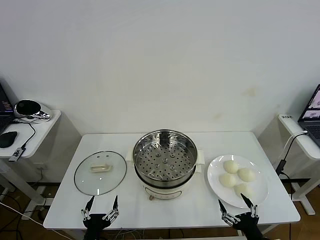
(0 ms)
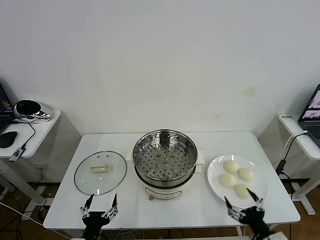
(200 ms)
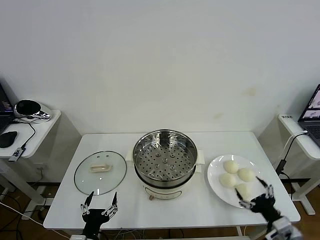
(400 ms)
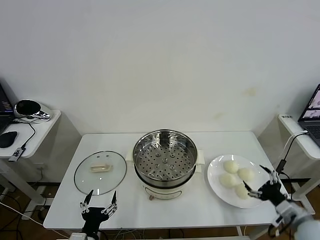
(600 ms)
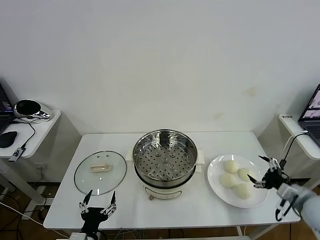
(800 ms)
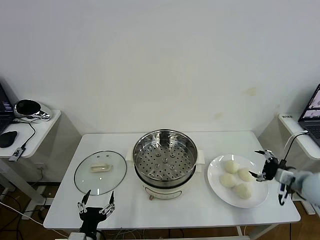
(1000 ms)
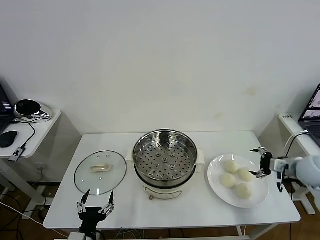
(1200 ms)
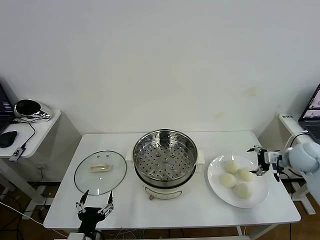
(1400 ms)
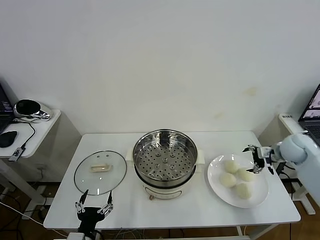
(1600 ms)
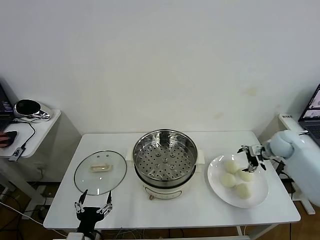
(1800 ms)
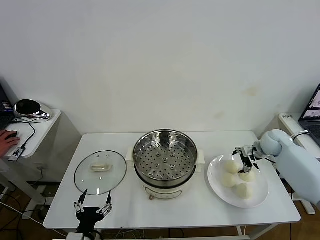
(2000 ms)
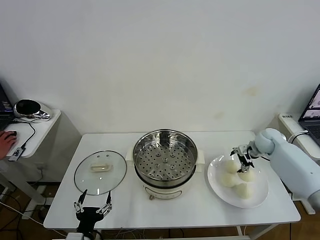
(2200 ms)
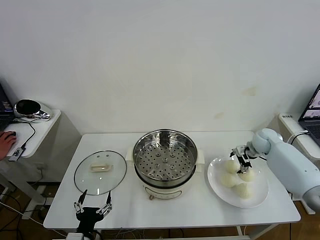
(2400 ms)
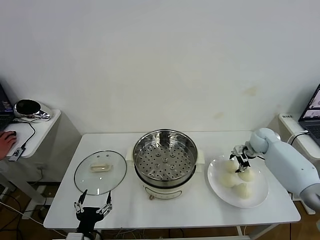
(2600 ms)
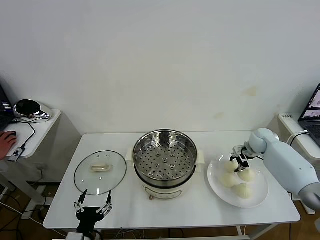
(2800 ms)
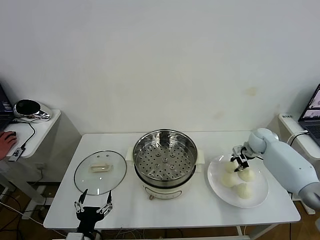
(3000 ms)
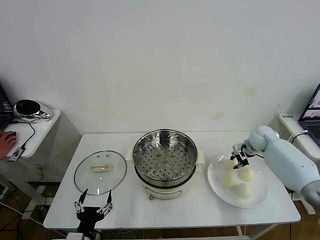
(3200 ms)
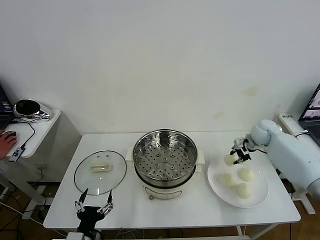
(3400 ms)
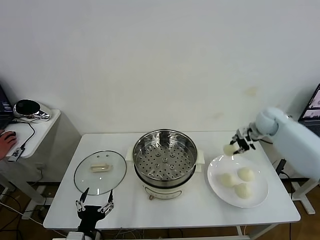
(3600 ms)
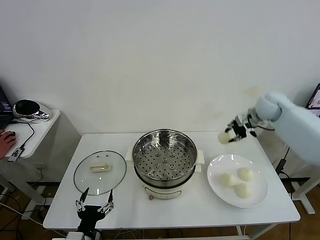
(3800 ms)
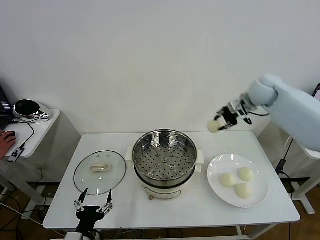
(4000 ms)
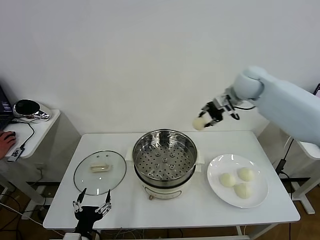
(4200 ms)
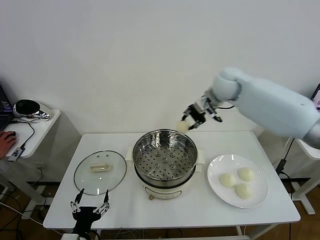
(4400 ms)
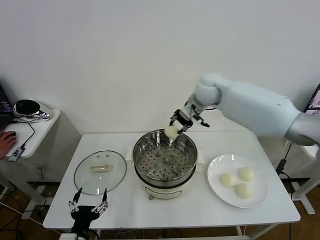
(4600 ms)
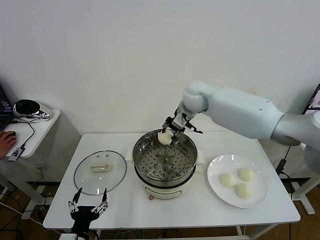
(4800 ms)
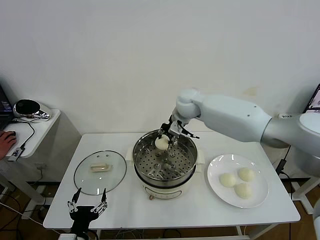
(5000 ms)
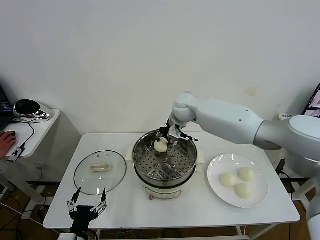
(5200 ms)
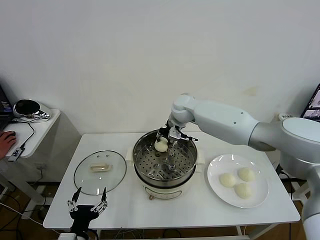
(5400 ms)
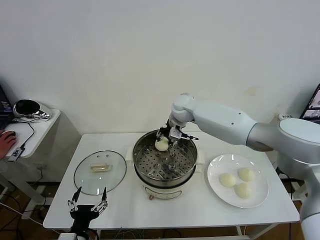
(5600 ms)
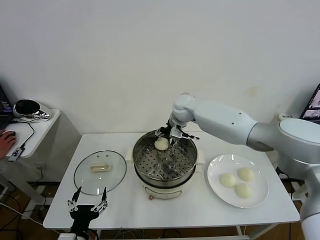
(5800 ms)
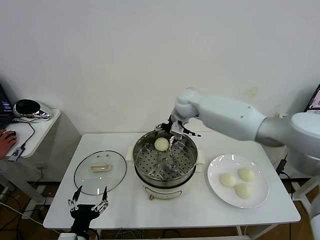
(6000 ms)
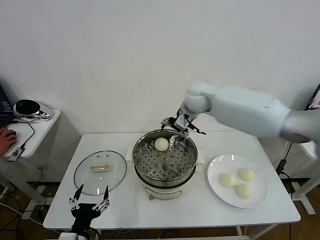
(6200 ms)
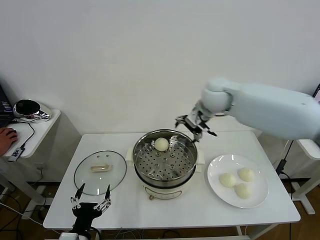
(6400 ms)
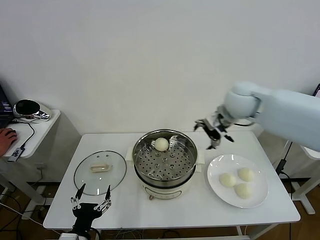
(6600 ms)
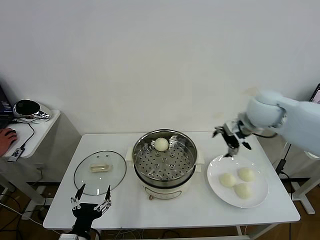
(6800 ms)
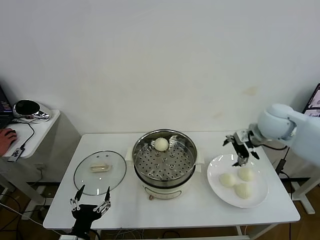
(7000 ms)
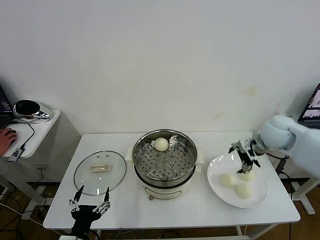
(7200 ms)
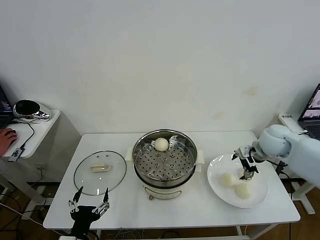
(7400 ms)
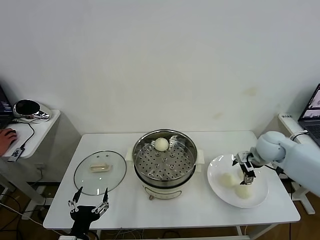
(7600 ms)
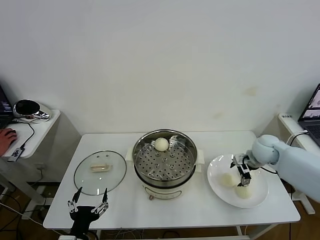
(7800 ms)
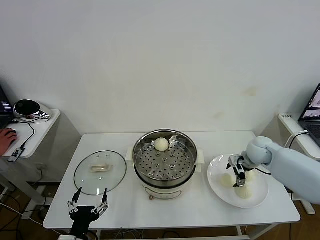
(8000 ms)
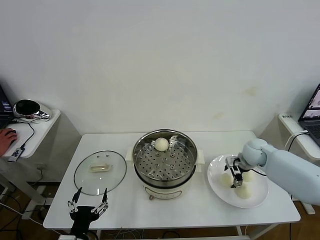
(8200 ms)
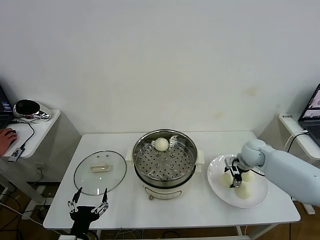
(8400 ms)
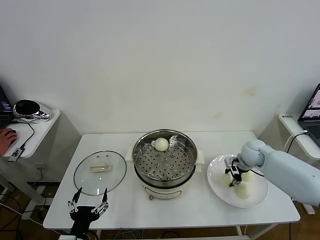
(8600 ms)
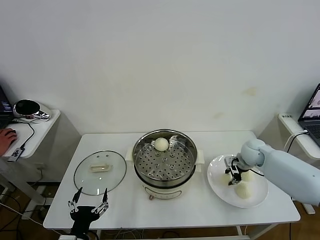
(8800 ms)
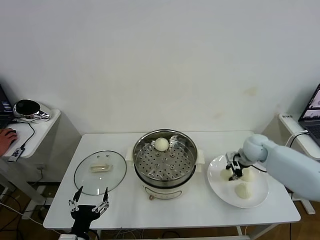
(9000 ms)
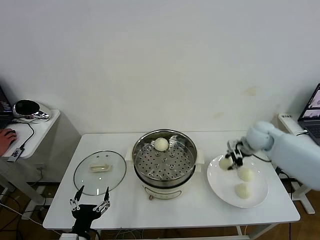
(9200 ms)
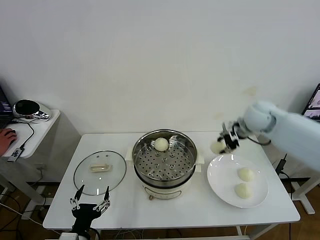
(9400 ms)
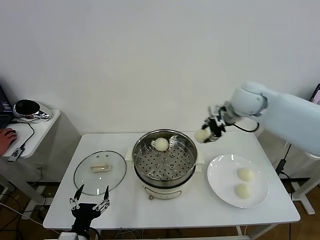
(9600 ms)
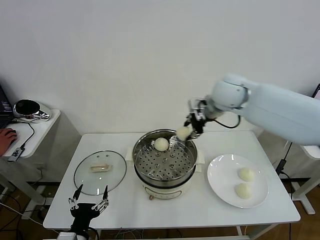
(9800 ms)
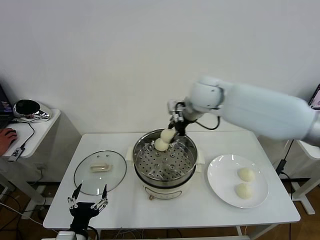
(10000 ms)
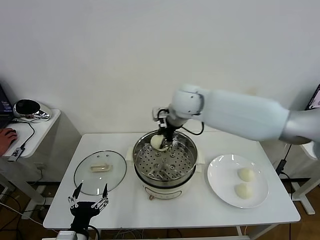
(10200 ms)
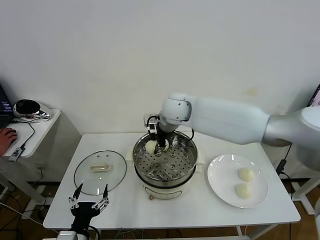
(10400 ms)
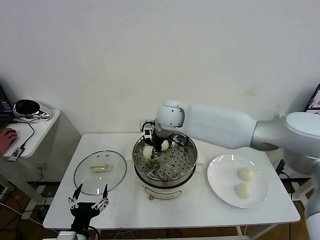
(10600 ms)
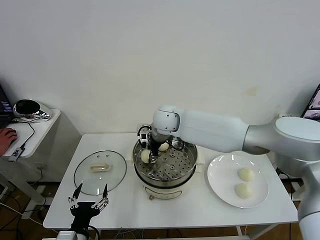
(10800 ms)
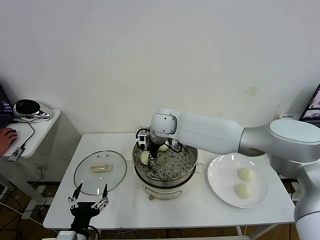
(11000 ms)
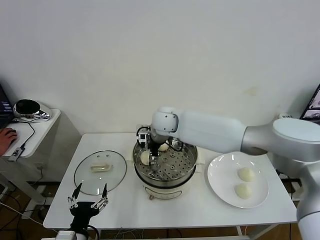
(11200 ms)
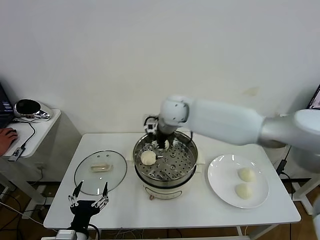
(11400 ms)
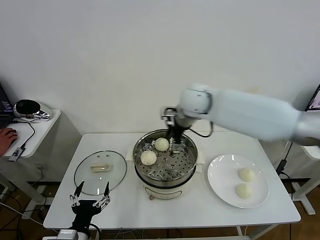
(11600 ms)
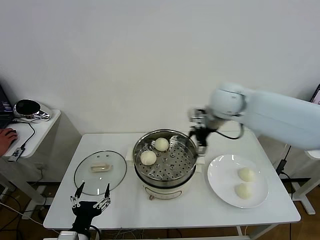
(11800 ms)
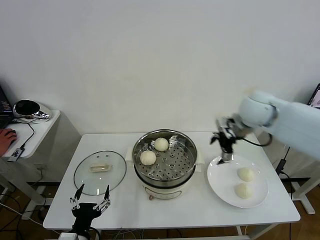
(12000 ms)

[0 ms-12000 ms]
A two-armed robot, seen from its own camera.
Task of the whole recording: take steamed baozi put them in steamer then cover it.
Step, 0 ms to 2800 ms: Grasp the baozi in the plate with right gripper.
Step, 3000 ms to 5800 ms: Place the baozi on the steamer with right gripper.
Step, 6000 ms to 8600 ms: Grasp the baozi in the plate with right gripper.
Step, 8800 ms to 11200 ms: Place the baozi on the steamer with right gripper.
1600 ms to 3000 ms: The right gripper travels forward by some 5 cm, and closes up.
3000 ms to 4400 ms: The right gripper goes some 30 cm to the left and upward.
4400 ms to 6000 ms: The right gripper goes roughly 5 cm to the left, and opens.
6000 ms to 7600 ms: The right gripper moves to the right and downward, about 30 cm.
7600 ms to 9000 ms: The right gripper closes up.
9000 ms to 10400 ms: The right gripper goes about 35 cm to the left and upward.
10400 ms to 12000 ms: The right gripper shifts roughly 25 cm to the right, and opens up.

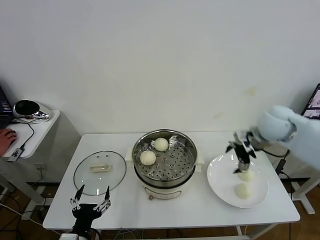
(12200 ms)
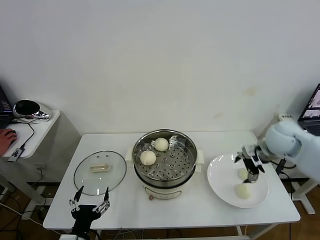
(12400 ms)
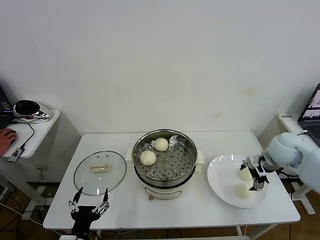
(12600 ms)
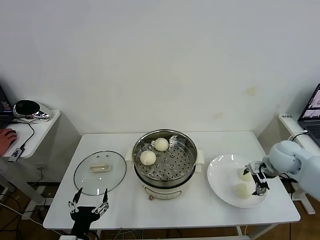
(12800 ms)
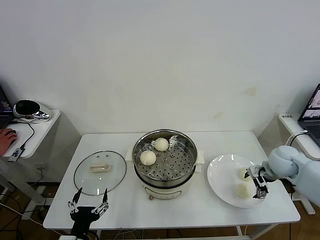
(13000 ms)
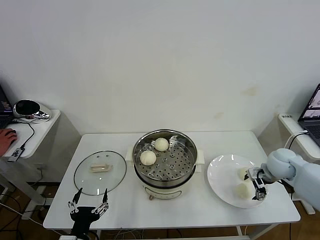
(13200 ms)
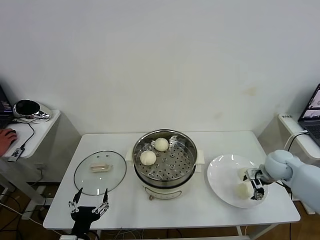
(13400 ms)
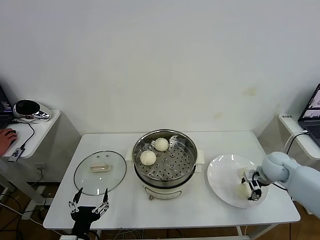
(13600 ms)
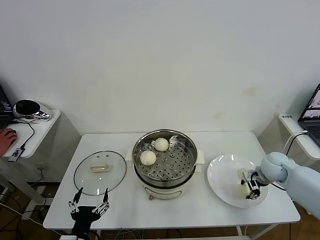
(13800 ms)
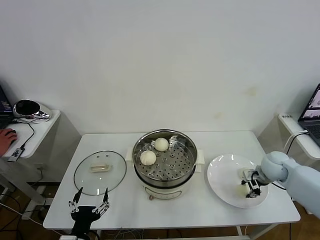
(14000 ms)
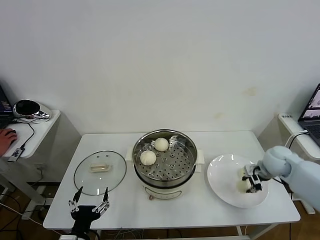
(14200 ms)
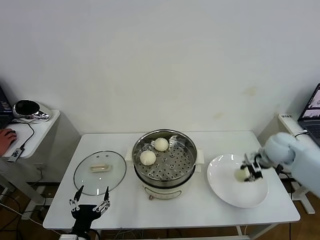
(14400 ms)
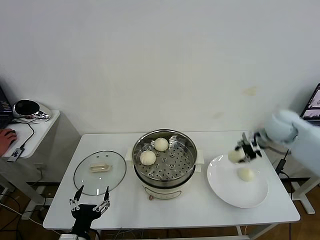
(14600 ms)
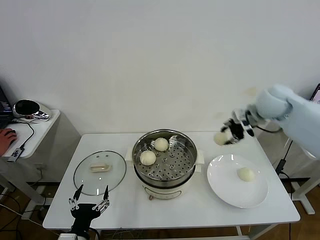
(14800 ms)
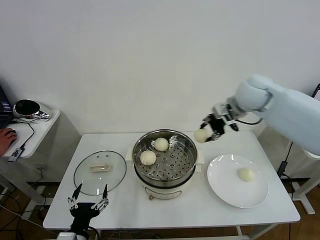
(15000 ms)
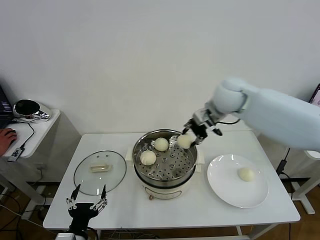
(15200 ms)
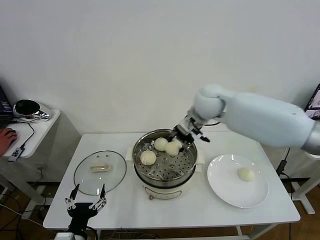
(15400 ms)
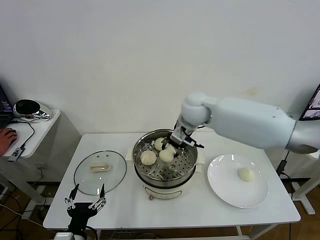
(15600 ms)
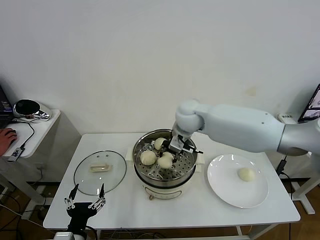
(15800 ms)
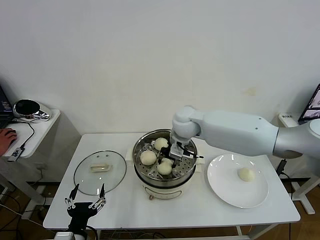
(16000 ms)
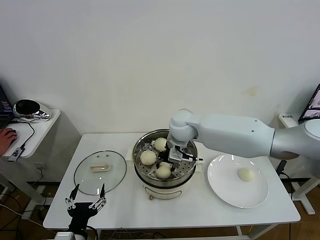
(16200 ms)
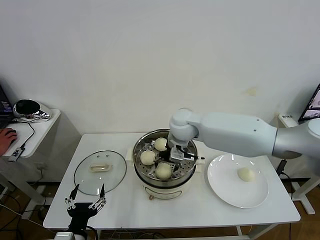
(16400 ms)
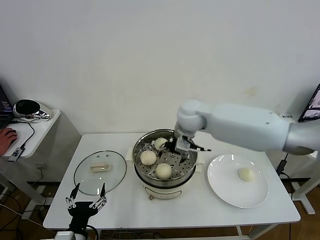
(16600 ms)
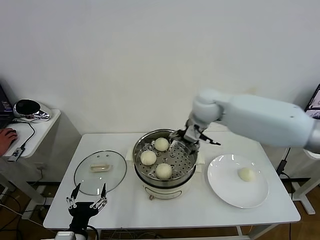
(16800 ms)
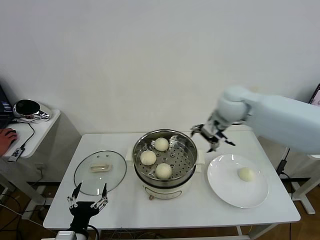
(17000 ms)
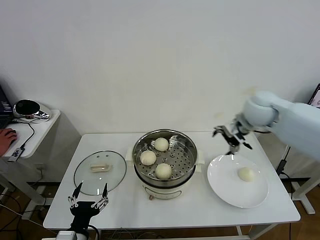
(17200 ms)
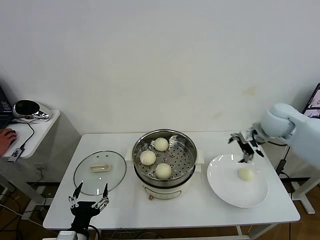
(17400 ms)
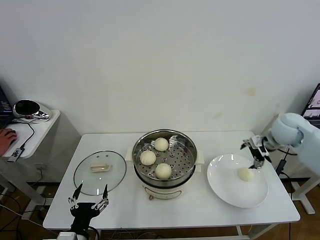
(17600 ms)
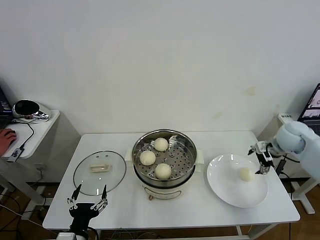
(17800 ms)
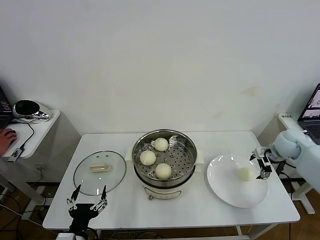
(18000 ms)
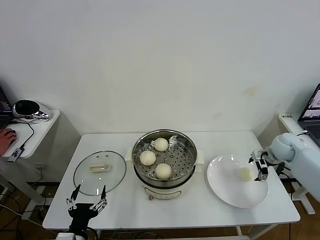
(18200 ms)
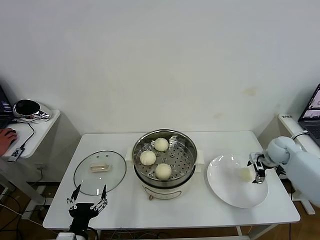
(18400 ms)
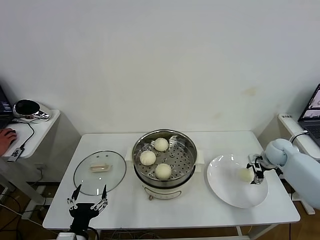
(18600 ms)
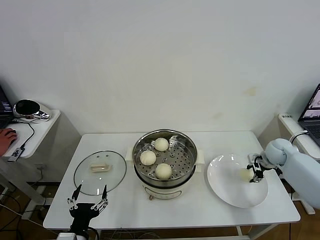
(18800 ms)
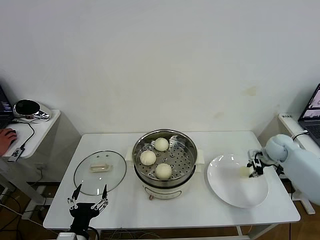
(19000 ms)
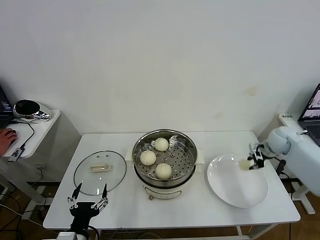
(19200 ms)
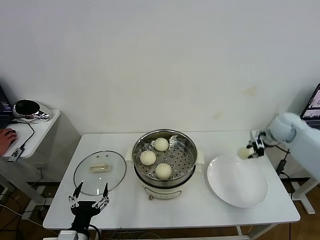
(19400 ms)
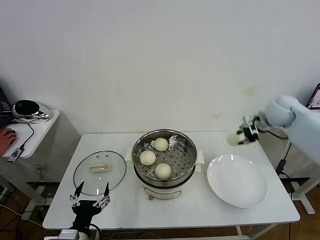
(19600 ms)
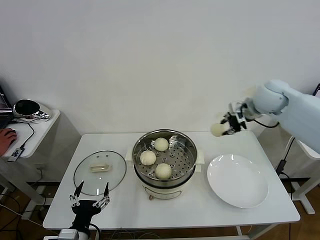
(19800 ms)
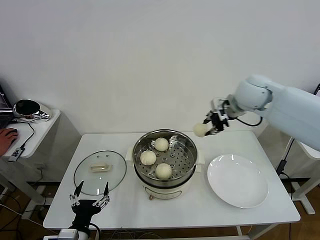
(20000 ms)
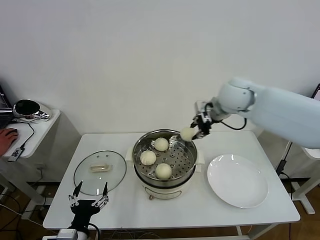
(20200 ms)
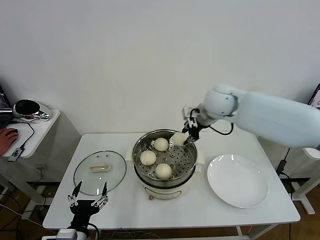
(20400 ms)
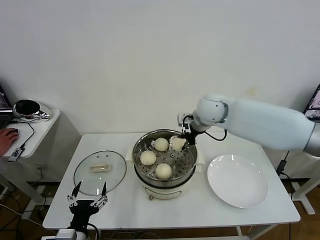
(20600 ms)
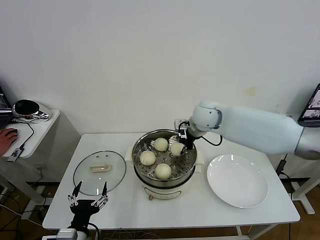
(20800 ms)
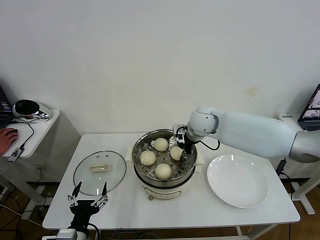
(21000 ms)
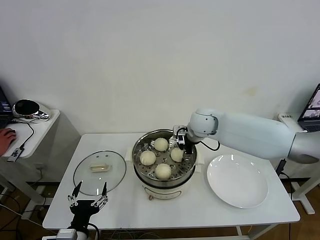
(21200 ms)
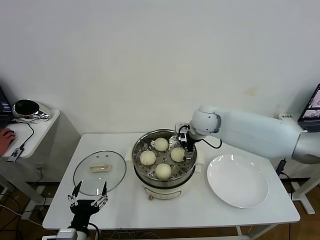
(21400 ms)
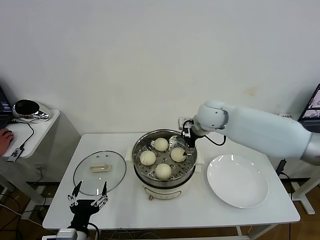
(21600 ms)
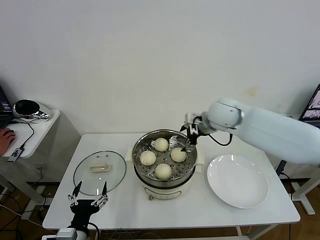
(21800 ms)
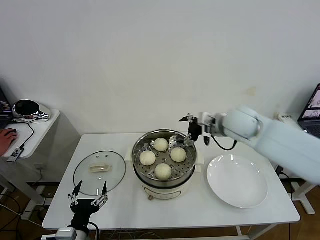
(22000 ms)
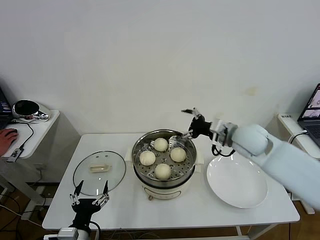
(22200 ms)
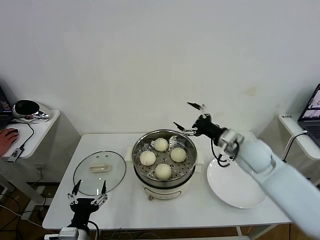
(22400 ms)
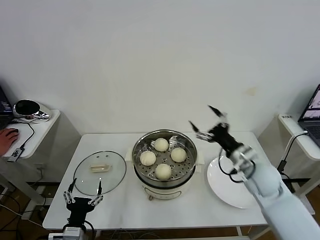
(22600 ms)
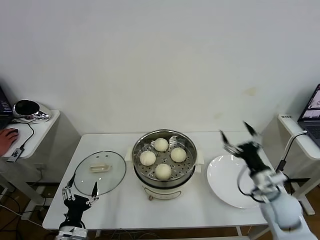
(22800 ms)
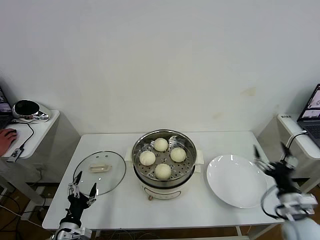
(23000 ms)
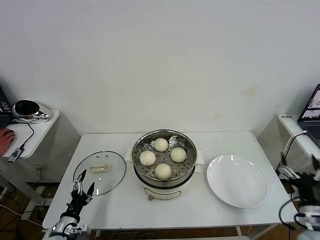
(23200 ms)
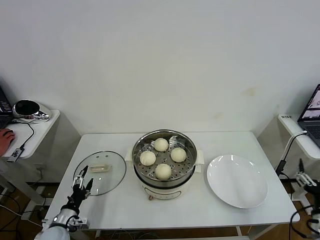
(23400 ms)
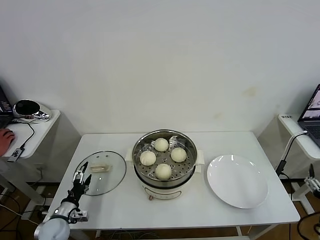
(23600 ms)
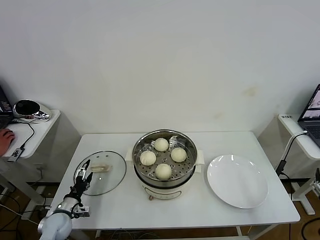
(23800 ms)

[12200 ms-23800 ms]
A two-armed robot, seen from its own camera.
Task of the whole recording: take steamed baozi put them in steamer then cover it.
Step, 12200 ms to 13800 ms: Grasp the baozi in the plate with right gripper.
Step, 14000 ms to 16400 ms: Place the baozi on the steamer with right gripper.
Step, 16800 ms to 18800 ms: Grasp the baozi in the plate with right gripper.
Step, 19000 ms to 21400 ms: Place the baozi on the steamer with right gripper.
12200 ms to 13600 ms: The right gripper is displaced downward by about 15 cm.
13600 ms to 15000 ms: The right gripper heads upward and to the left, covering some 30 cm, and closes its fingers.
15000 ms to 16600 ms: The right gripper travels to the left and downward by roughly 15 cm, and opens up.
16600 ms to 18000 ms: The right gripper shifts about 35 cm to the right.
18000 ms to 19400 ms: The right gripper is displaced upward by approximately 5 cm, and closes up.
19400 ms to 21000 ms: The right gripper heads to the left, covering roughly 30 cm.
21000 ms to 22400 ms: The right gripper shifts roughly 20 cm to the right and backward, and opens its fingers.
22400 ms to 23800 ms: The left gripper heads forward, to the left and downward, covering roughly 20 cm; the right gripper is displaced backward and to the right by about 30 cm.
